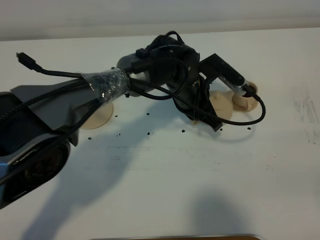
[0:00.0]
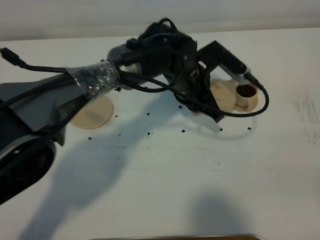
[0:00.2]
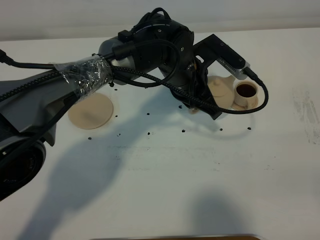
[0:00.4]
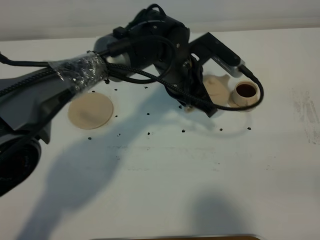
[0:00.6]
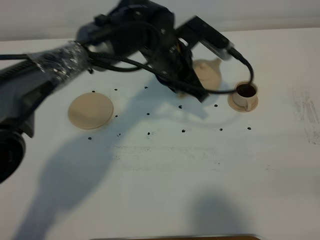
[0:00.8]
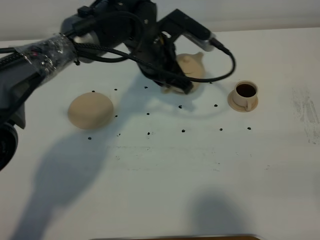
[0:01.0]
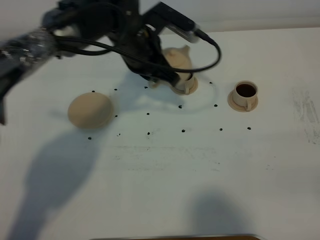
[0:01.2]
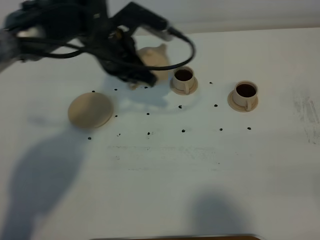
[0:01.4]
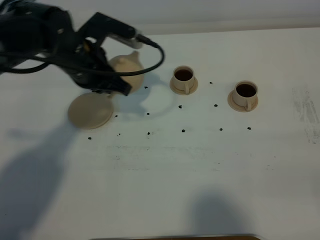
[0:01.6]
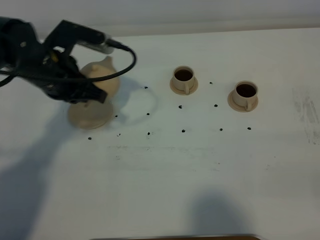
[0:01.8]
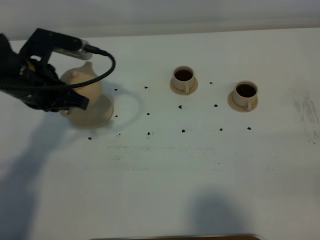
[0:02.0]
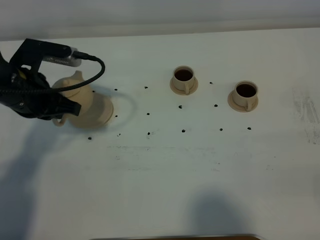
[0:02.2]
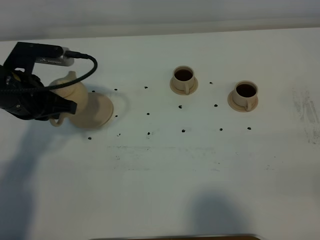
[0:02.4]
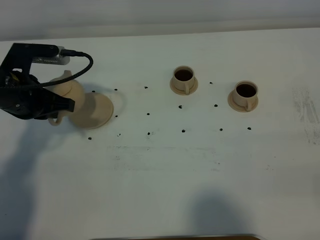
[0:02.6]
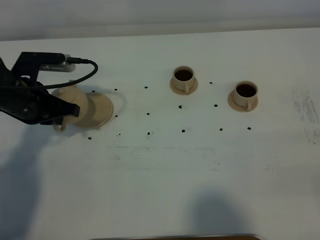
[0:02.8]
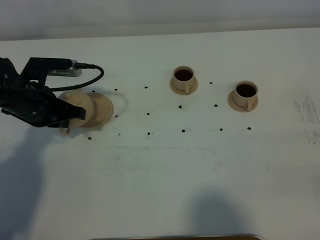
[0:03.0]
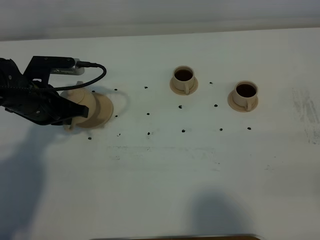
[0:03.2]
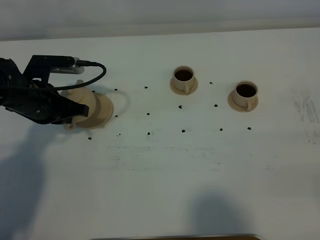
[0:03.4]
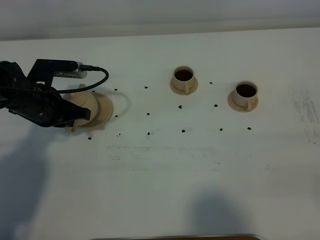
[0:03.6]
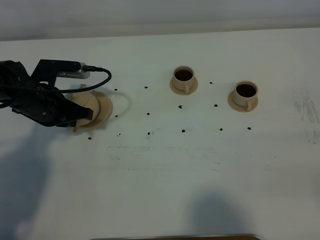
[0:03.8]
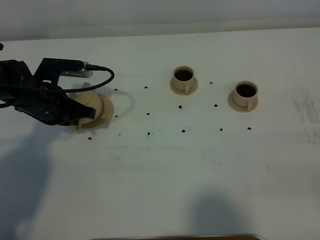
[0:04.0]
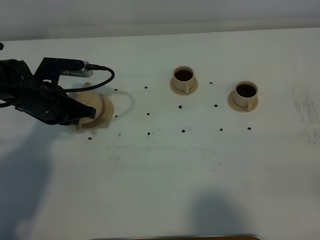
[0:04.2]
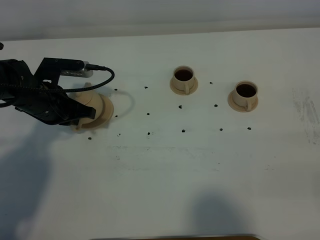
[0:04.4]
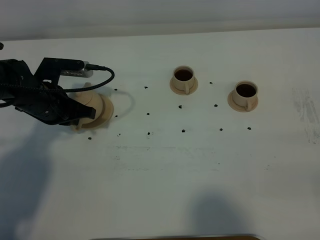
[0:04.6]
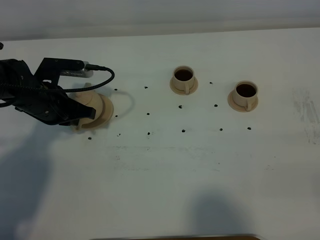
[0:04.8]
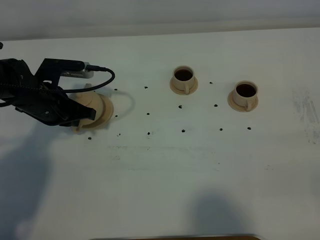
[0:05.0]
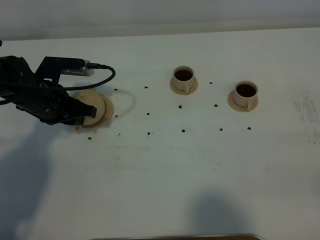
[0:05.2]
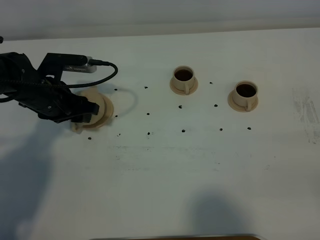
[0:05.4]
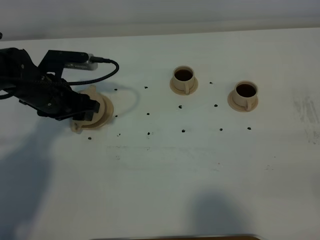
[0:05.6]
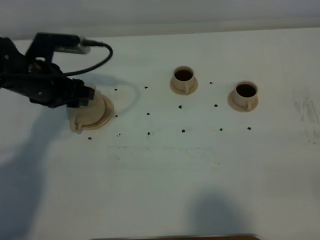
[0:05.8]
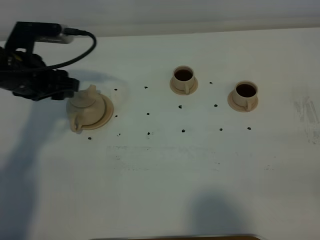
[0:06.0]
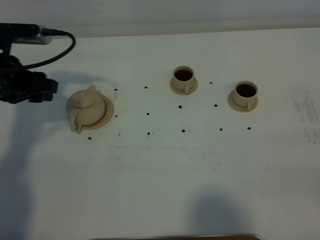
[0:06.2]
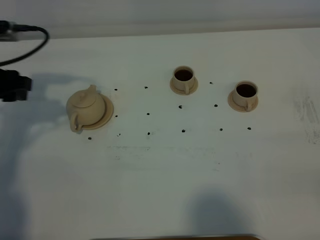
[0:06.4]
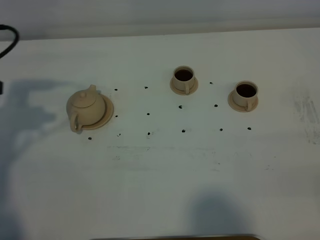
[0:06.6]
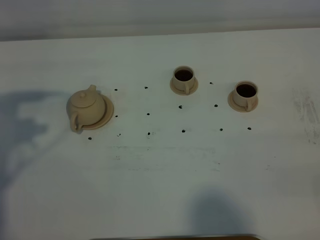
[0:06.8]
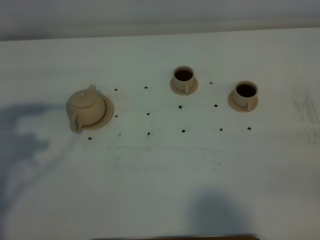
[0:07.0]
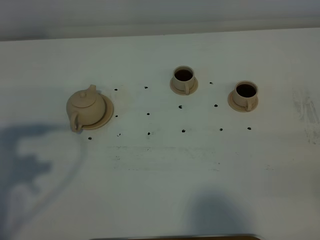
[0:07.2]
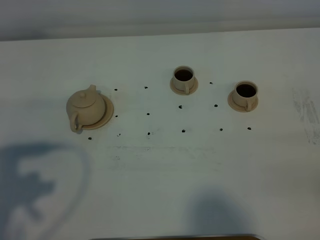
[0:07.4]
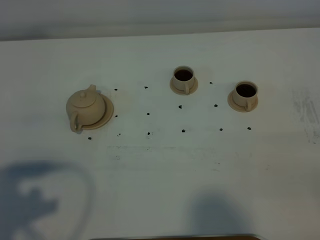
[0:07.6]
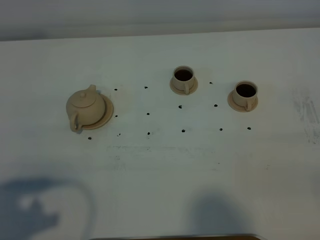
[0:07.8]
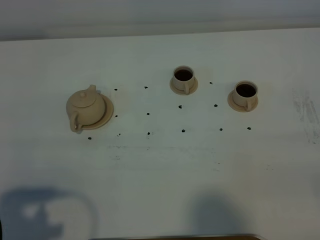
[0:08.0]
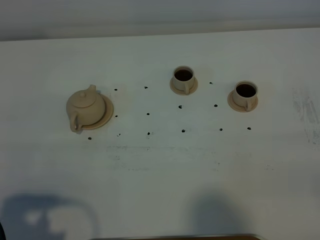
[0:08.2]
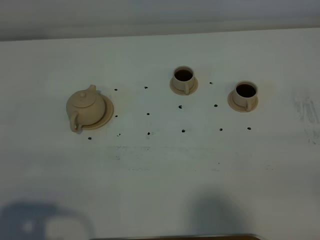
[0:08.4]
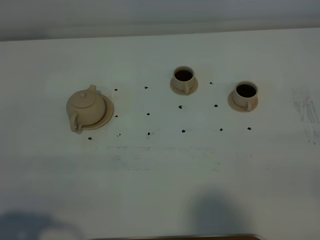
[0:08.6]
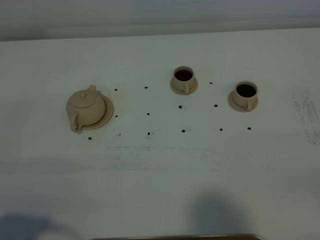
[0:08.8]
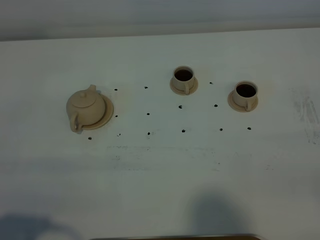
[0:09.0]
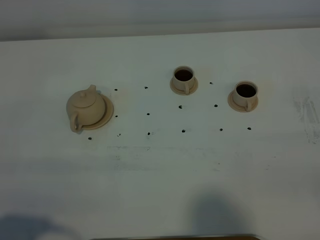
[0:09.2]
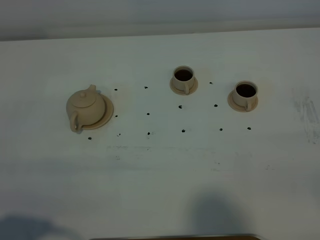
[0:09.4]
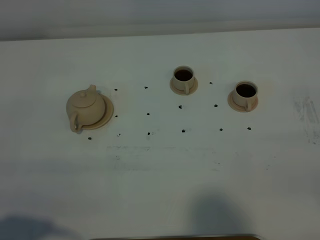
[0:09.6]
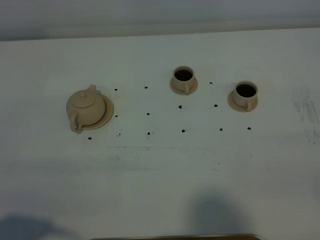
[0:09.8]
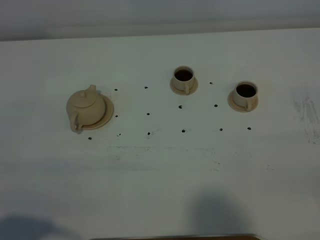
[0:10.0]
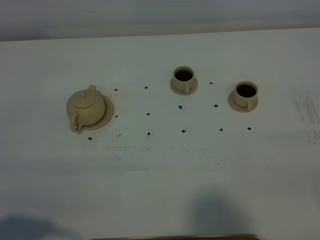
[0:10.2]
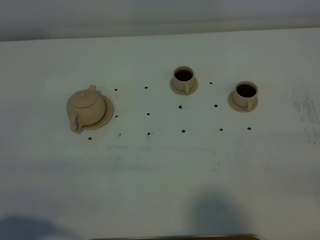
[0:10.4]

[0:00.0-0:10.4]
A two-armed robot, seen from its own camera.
Task of the whole recording: grasp the brown teapot and pour the tea into the two brown teacups one by one, put the brown teapot back in its original place.
0:00.0 to 0:01.4: The left gripper goes roughly 15 cm to the left and upward.
0:01.4 to 0:03.0: The left gripper goes approximately 15 cm to the left and downward.
0:03.0 to 0:04.4: The grippers make only small movements.
0:04.4 to 0:06.0: The left gripper moves upward, about 10 cm, and opens up.
0:06.0 to 0:07.4: The left gripper is displaced backward by approximately 25 cm.
0:07.4 to 0:09.0: The left gripper is displaced backward by approximately 10 cm.
0:09.0 to 0:10.4: Both grippers stay put.

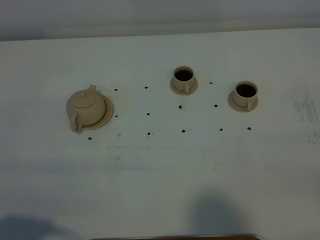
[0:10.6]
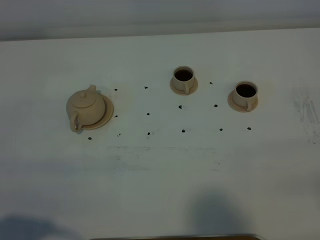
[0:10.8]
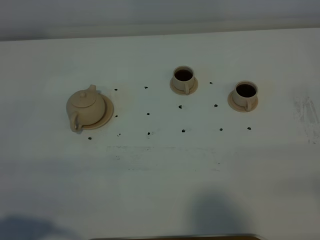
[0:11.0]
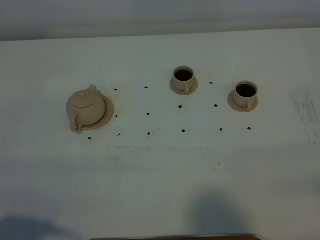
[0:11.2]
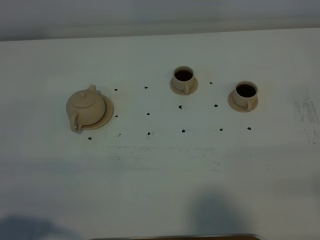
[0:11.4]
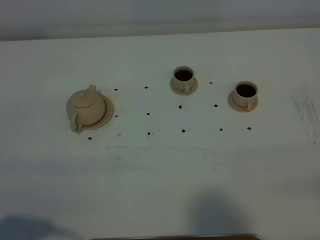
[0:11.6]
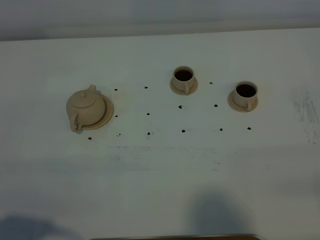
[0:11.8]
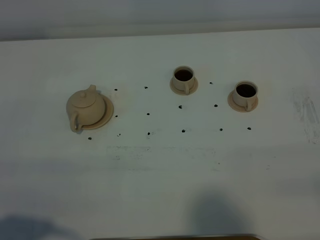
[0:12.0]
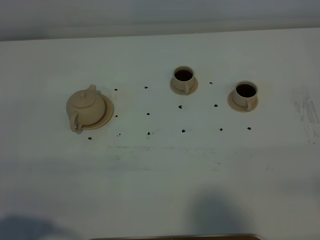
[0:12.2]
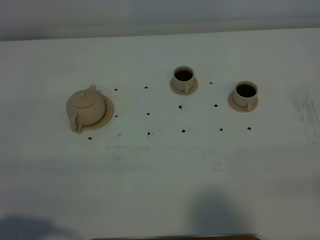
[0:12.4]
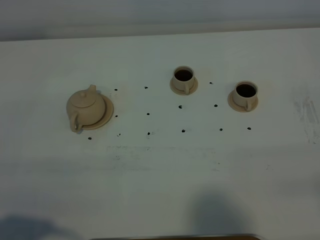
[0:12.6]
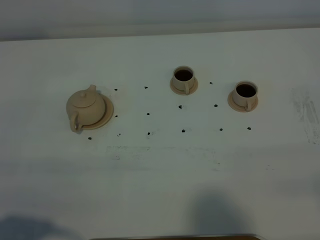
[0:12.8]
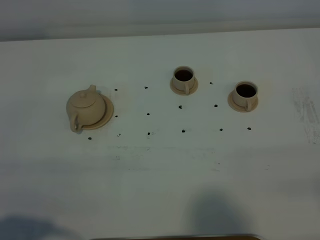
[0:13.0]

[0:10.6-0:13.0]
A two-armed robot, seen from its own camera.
Task of the whole recording: grasp the brown teapot and pour the tea into the two brown teacups one by one, put the brown teapot back in its original place.
0:11.8 to 0:13.0: The two grippers keep their place.
